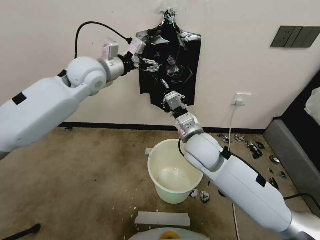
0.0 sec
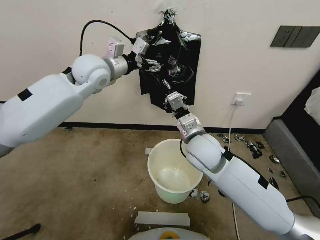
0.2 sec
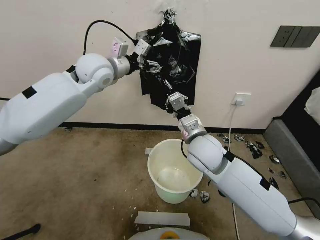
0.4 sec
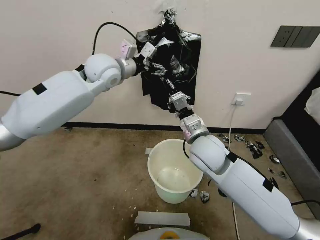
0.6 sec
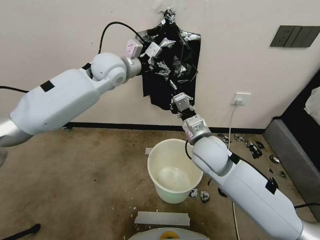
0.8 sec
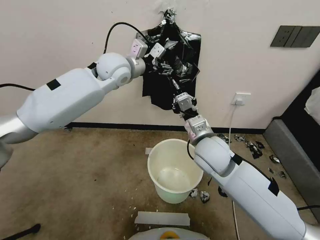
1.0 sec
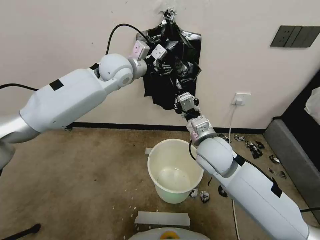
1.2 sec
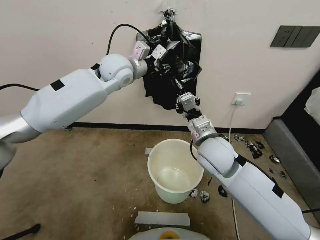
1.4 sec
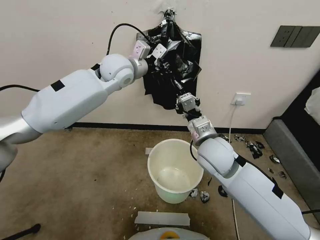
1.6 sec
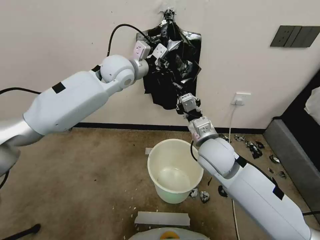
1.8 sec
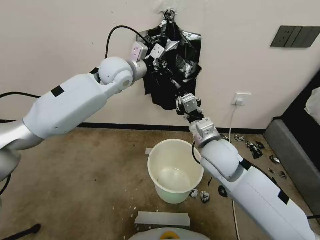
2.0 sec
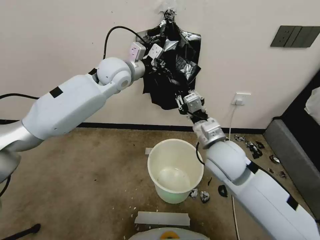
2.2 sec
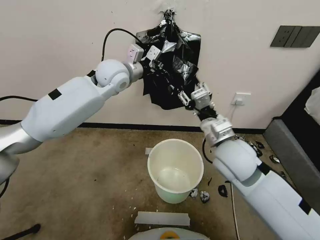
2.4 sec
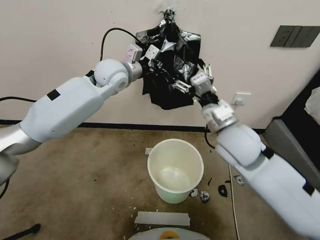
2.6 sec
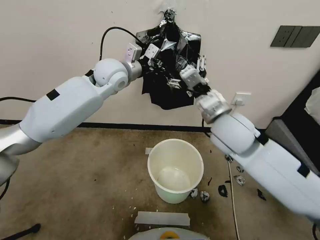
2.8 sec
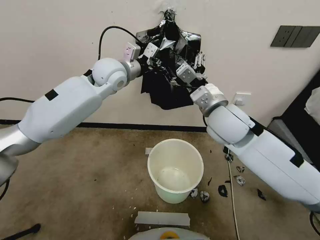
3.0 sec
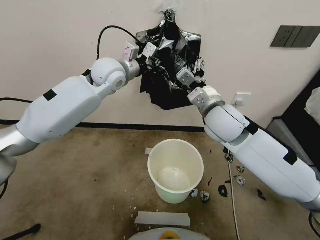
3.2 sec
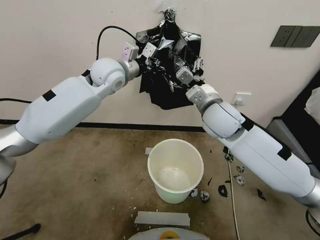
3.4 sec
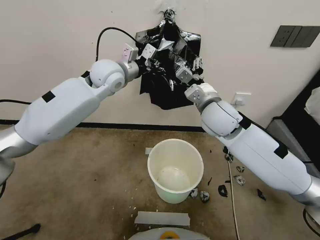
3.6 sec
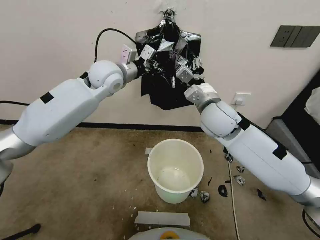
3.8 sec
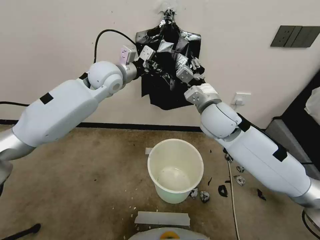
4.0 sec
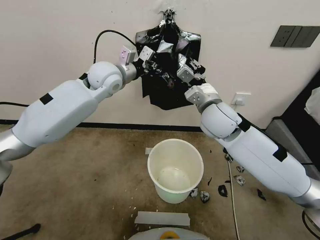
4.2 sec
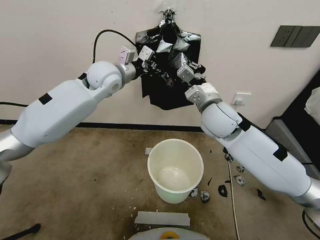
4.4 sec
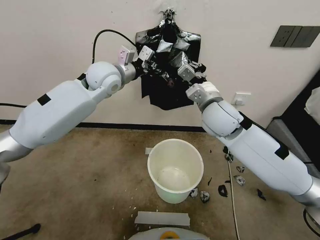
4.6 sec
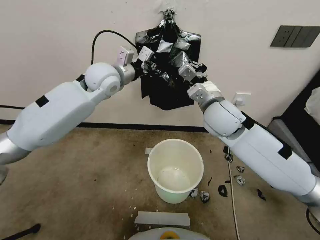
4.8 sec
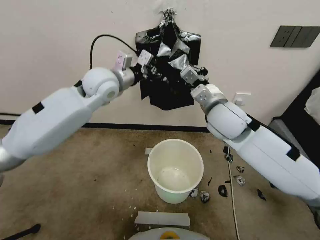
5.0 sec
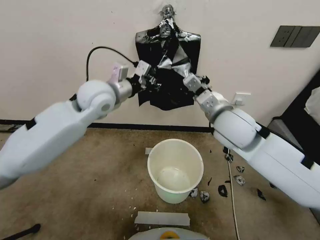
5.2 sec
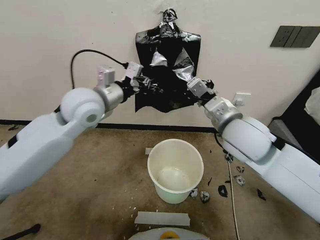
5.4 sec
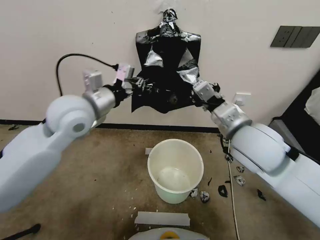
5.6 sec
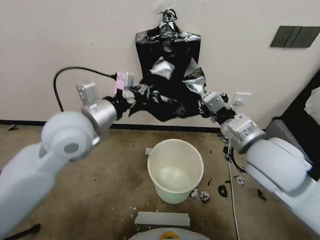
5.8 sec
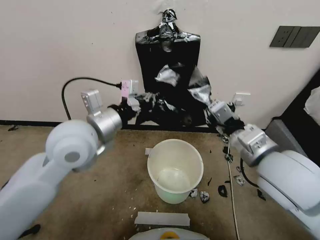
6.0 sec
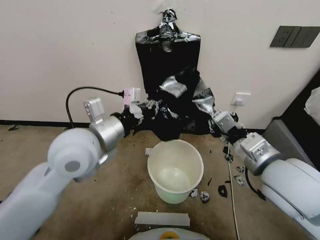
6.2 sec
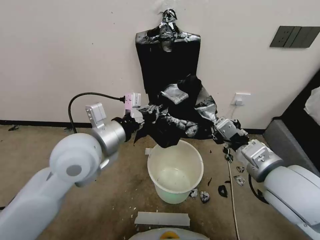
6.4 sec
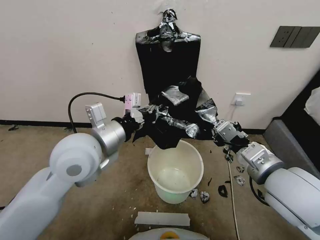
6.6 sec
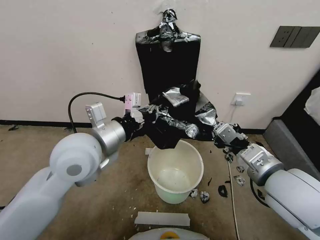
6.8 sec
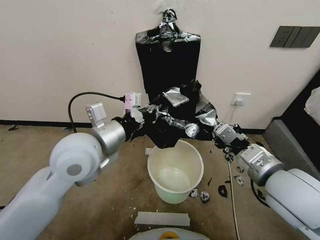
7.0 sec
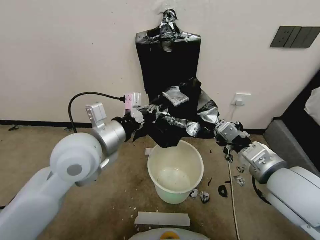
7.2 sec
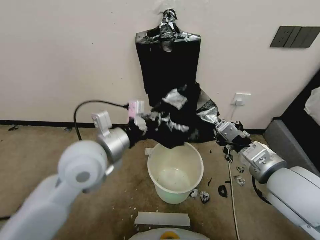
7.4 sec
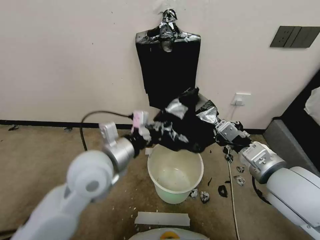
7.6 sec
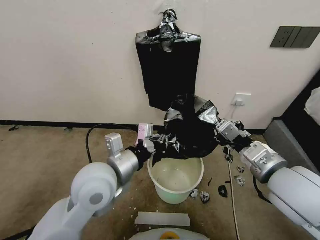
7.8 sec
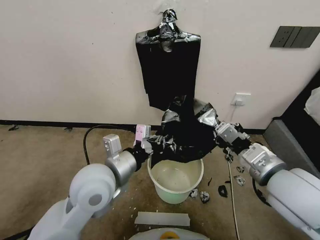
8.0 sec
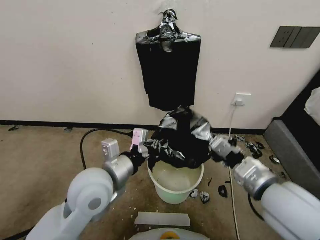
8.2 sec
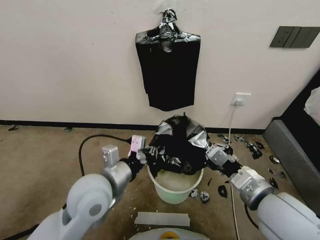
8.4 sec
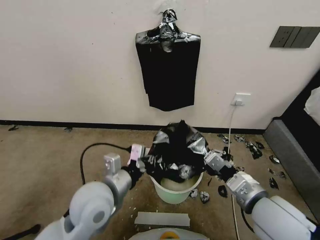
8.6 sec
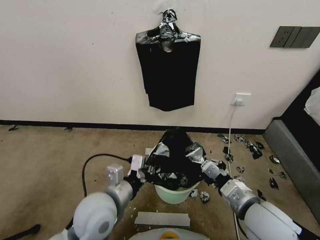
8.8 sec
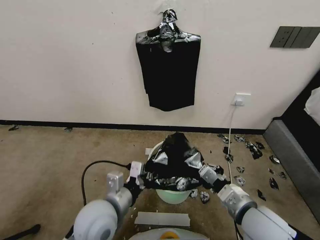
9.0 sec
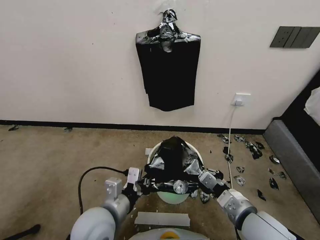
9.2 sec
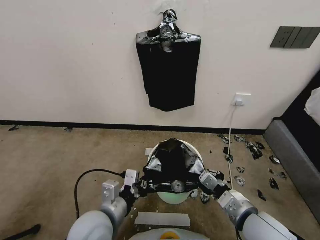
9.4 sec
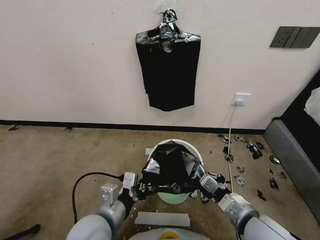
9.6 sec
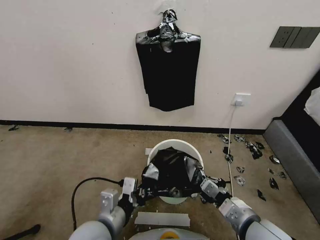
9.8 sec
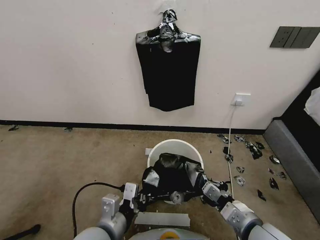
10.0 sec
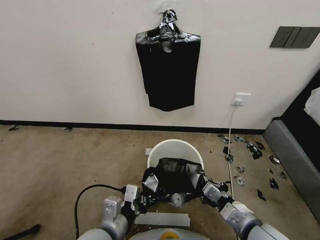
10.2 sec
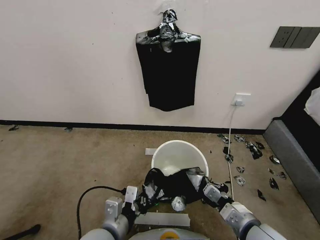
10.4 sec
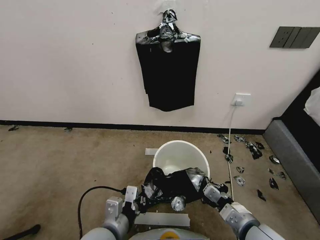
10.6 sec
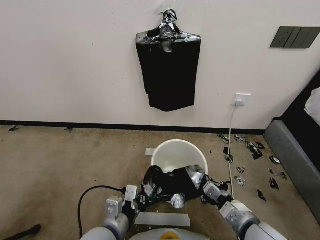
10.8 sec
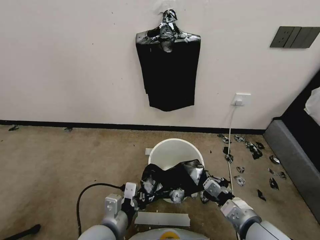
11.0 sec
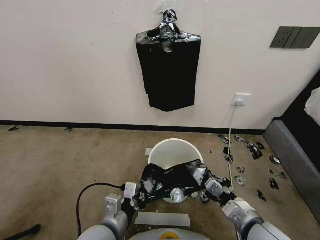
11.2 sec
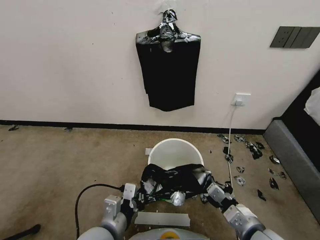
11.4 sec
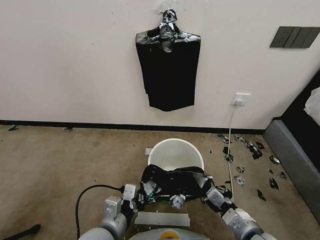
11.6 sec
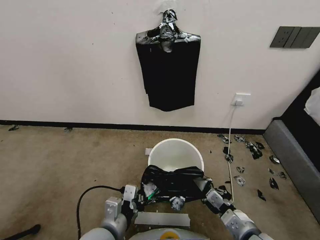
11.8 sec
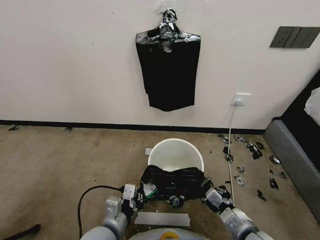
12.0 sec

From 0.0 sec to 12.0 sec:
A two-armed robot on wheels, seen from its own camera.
Task of the whole recording: Place a trash bag onto the trash bin.
From 0.0 sec to 1.6 sec: The left gripper travels to the right by approximately 10 cm, and closes.
From 1.6 sec to 3.0 sec: The right gripper travels upward by some 10 cm, and opens up.
From 3.0 sec to 4.4 sec: The right gripper closes.
From 4.4 sec to 6.0 sec: The right gripper goes some 20 cm backward and to the right, while the left gripper travels backward by about 20 cm.
From 6.0 sec to 7.6 sec: The left gripper travels downward by some 5 cm.
From 7.6 sec to 9.0 sec: The right gripper travels downward by roughly 15 cm. Meanwhile the left gripper is displaced downward and backward by roughly 15 cm.
From 9.0 sec to 10.4 sec: The left gripper heads backward, covering approximately 5 cm, while the right gripper ends up roughly 5 cm from where it was.
From 10.4 sec to 12.0 sec: There are only small adjustments of the grippers.

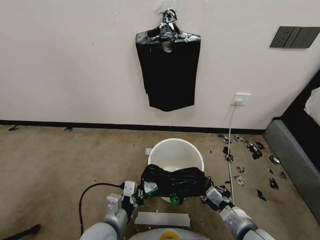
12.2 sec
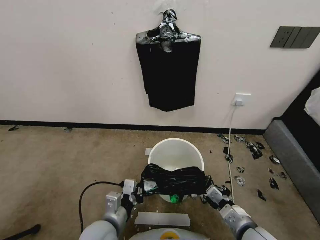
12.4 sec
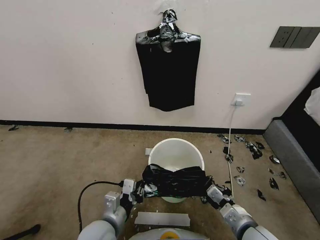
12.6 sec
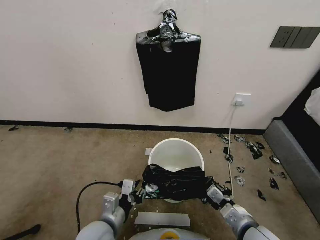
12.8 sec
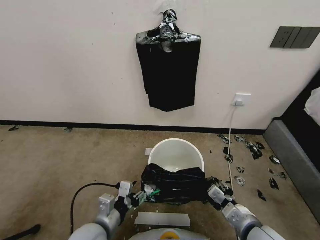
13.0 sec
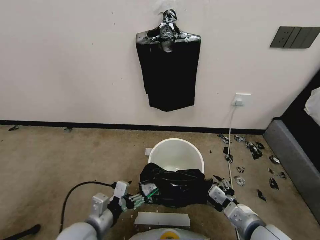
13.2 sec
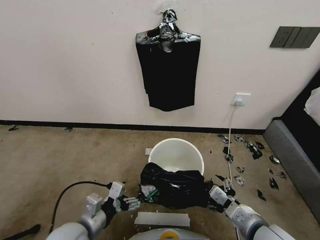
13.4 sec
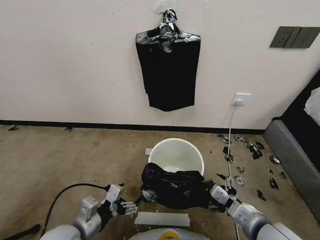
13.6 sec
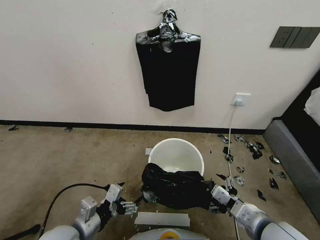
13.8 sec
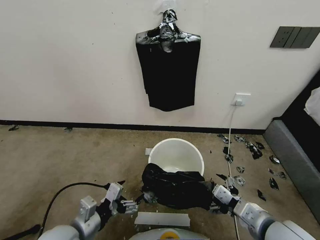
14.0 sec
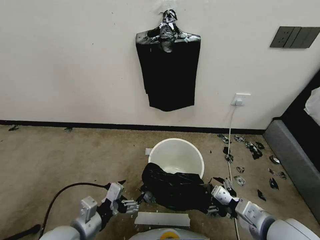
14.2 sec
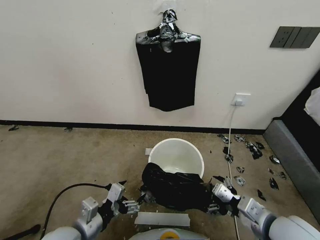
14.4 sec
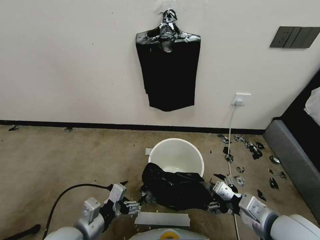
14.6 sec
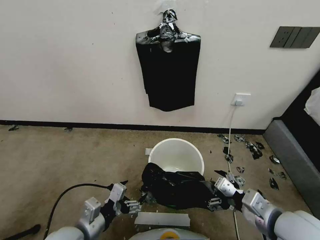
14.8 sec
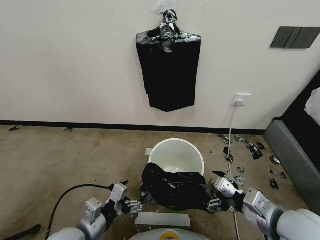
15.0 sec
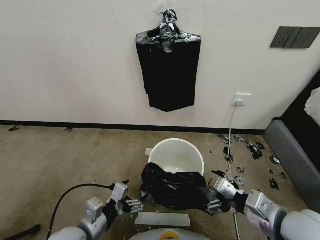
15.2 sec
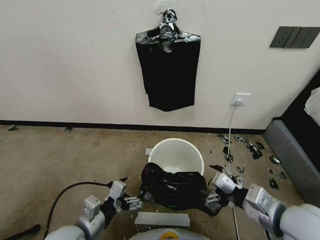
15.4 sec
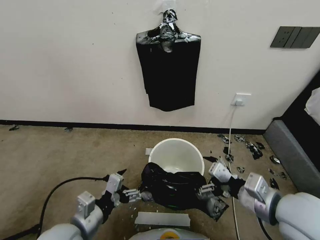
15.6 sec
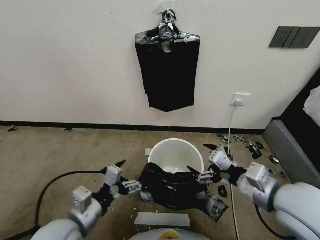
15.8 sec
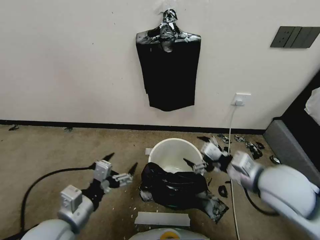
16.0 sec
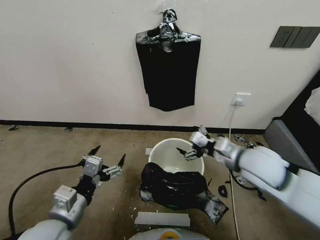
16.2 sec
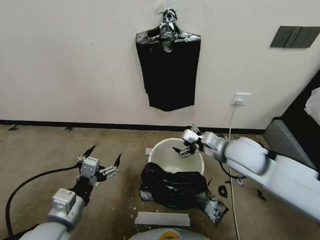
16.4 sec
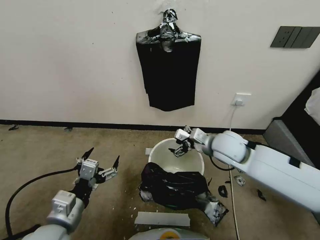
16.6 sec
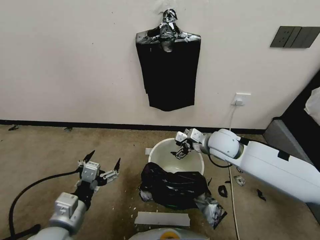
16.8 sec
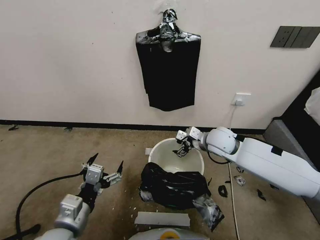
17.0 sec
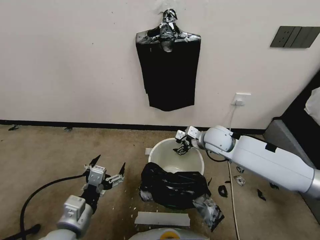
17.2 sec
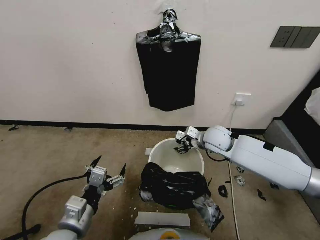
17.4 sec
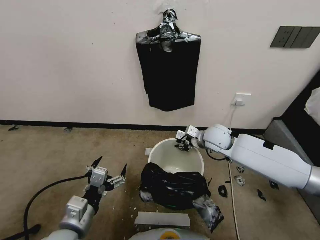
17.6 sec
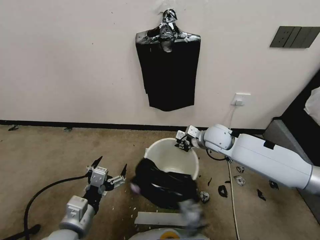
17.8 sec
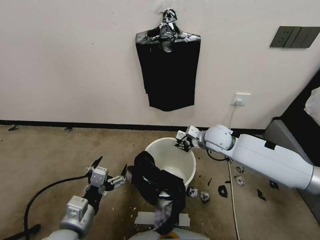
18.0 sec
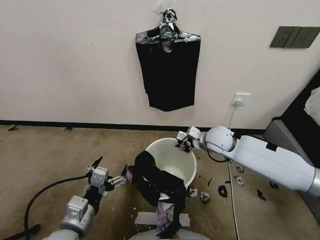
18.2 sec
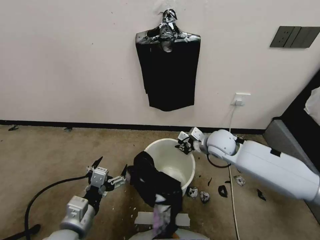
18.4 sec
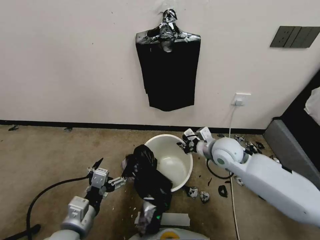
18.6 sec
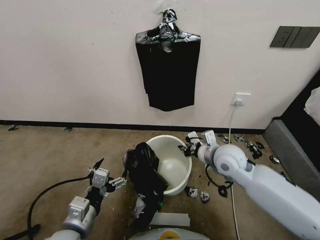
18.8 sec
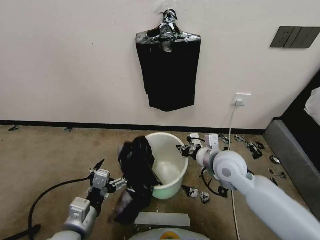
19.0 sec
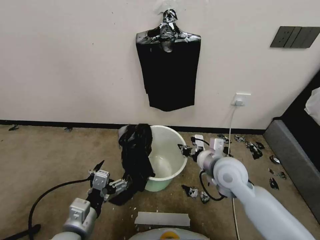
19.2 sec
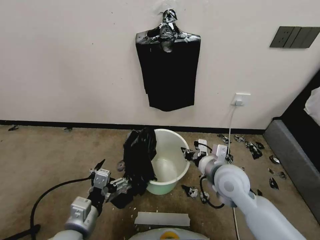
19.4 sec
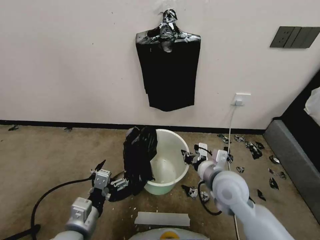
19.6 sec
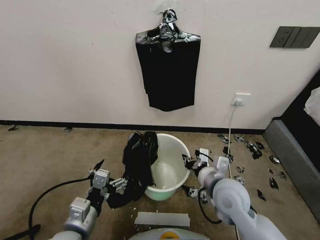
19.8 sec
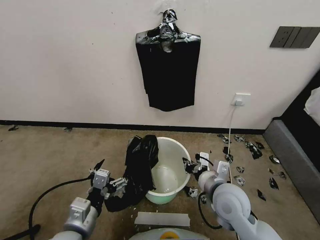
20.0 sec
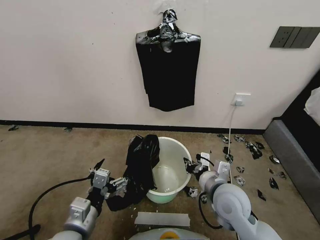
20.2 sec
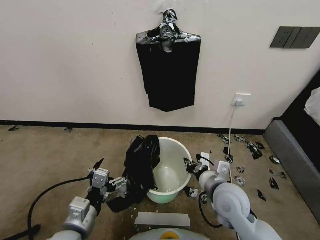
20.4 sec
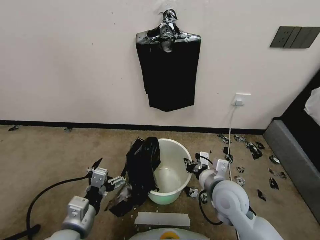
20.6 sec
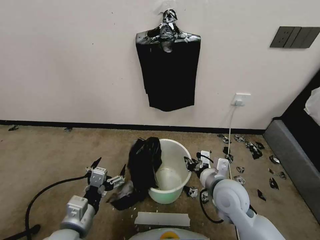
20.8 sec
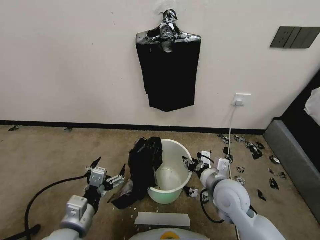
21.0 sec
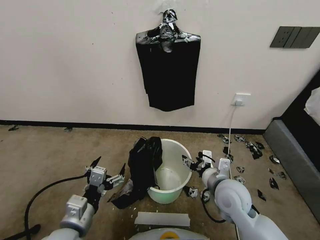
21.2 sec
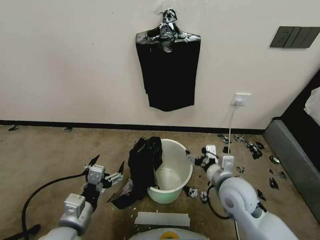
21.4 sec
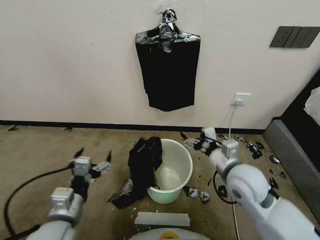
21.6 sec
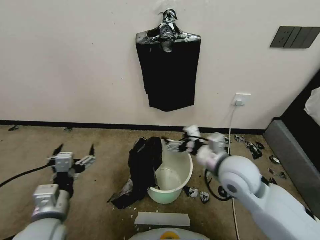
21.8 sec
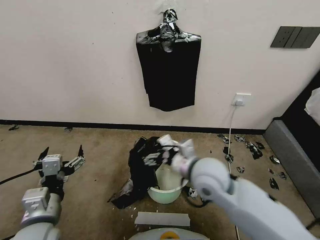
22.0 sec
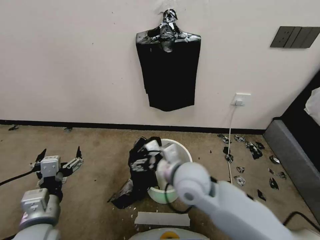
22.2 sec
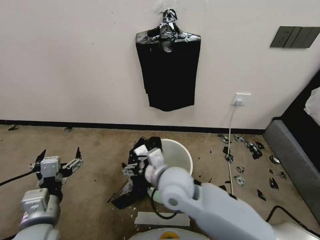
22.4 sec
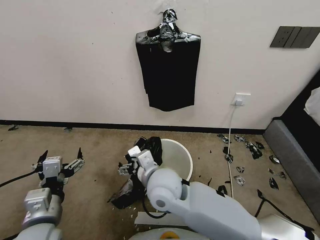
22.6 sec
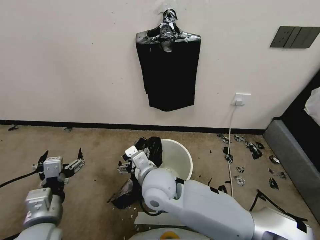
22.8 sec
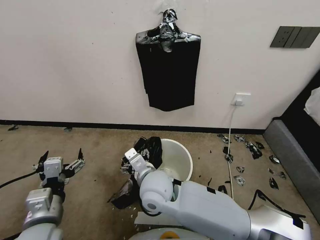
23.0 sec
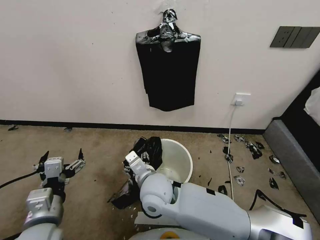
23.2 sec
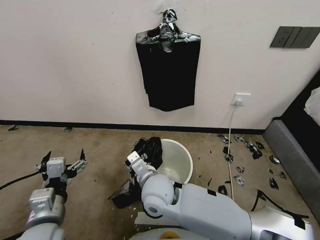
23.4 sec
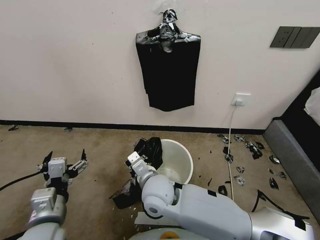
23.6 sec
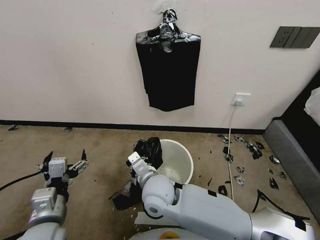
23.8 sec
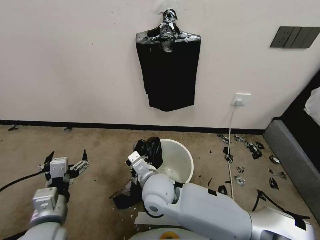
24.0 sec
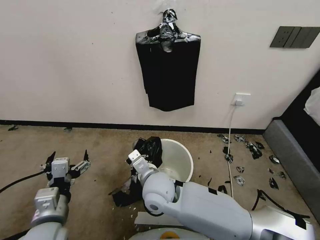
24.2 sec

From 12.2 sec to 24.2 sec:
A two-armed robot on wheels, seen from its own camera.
Task of the whole recording: Place a trash bag onto the trash bin.
From 12.2 sec to 13.8 sec: The left gripper travels to the left by approximately 10 cm, and opens its fingers. The right gripper moves upward, some 10 cm, and opens its fingers.
From 13.8 sec to 15.2 sec: The right gripper shifts about 5 cm upward.
From 15.2 sec to 16.6 sec: The right gripper moves forward, roughly 20 cm. Meanwhile the left gripper is displaced upward by roughly 5 cm.
From 16.6 sec to 18.2 sec: The right gripper goes approximately 5 cm forward, and closes its fingers.
From 18.2 sec to 19.8 sec: The right gripper moves backward, approximately 20 cm.
From 19.8 sec to 21.2 sec: The right gripper opens its fingers.
From 21.2 sec to 22.6 sec: The right gripper goes approximately 20 cm to the left, while the left gripper moves roughly 5 cm.
From 22.6 sec to 24.2 sec: The right gripper closes.
